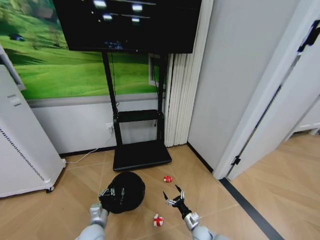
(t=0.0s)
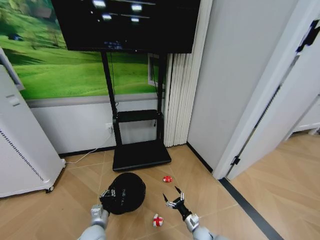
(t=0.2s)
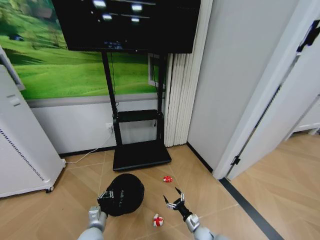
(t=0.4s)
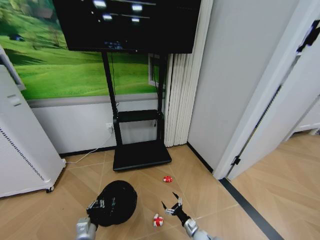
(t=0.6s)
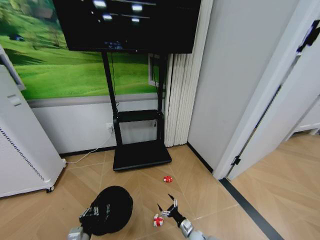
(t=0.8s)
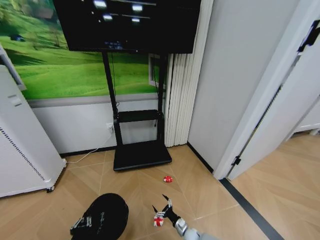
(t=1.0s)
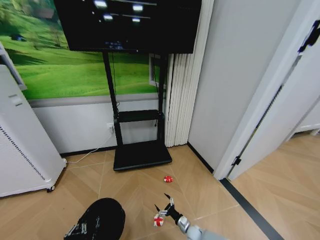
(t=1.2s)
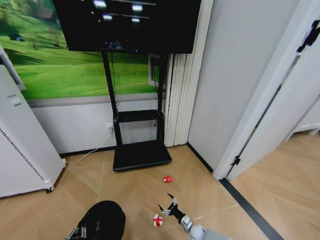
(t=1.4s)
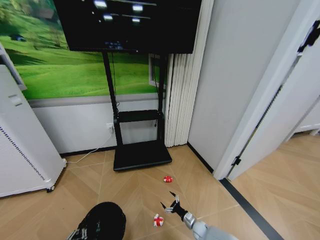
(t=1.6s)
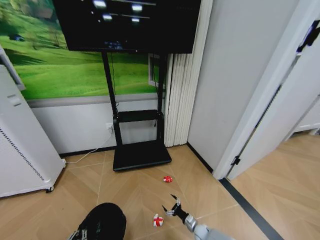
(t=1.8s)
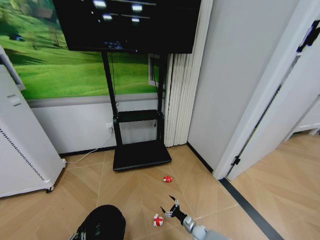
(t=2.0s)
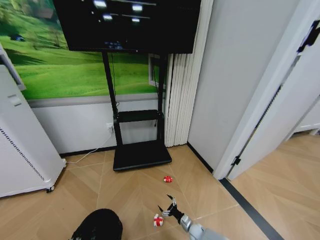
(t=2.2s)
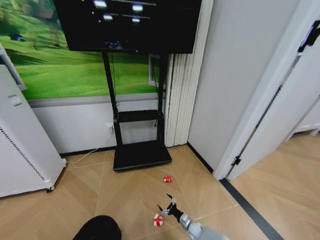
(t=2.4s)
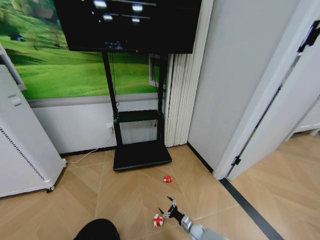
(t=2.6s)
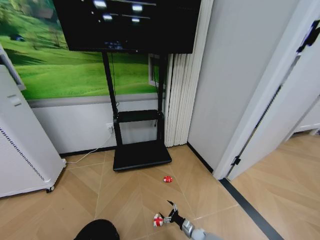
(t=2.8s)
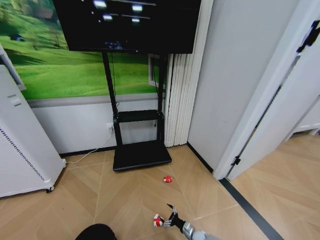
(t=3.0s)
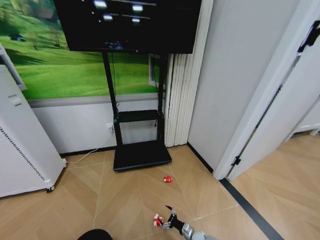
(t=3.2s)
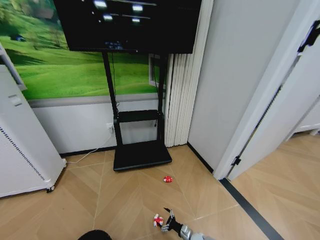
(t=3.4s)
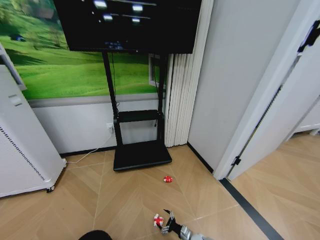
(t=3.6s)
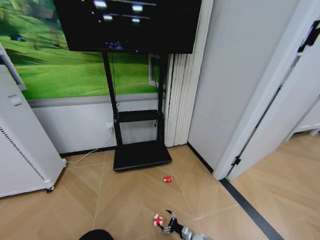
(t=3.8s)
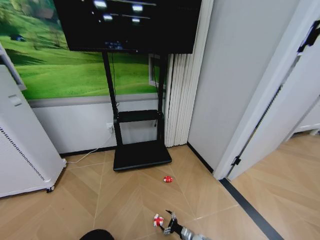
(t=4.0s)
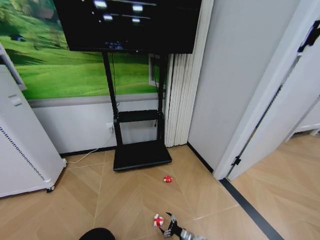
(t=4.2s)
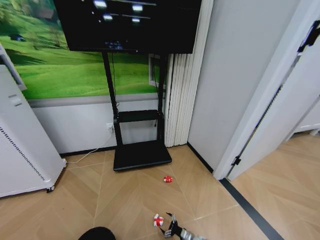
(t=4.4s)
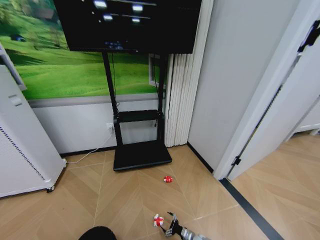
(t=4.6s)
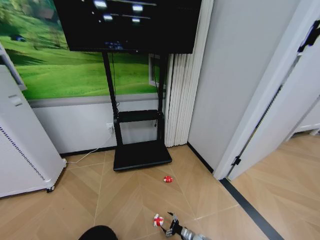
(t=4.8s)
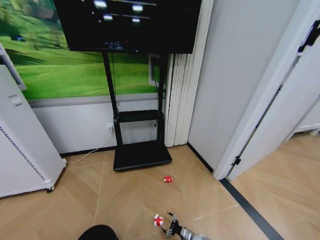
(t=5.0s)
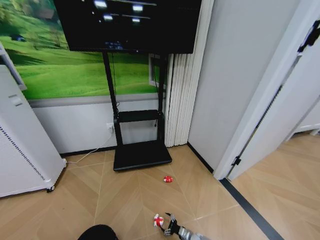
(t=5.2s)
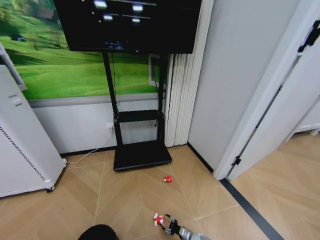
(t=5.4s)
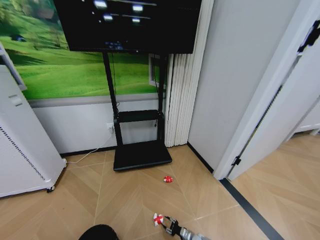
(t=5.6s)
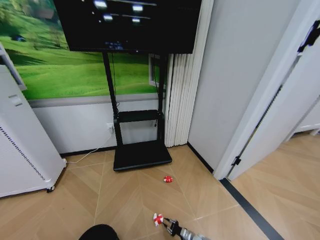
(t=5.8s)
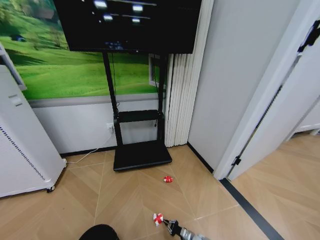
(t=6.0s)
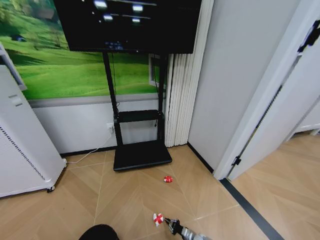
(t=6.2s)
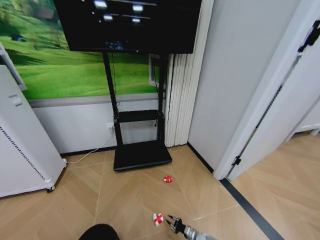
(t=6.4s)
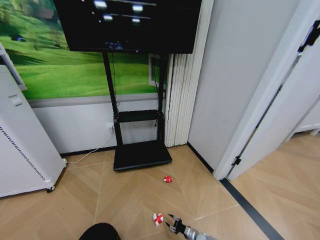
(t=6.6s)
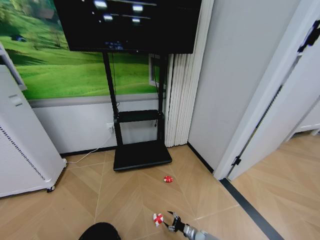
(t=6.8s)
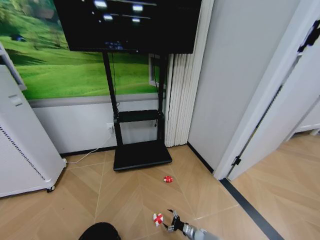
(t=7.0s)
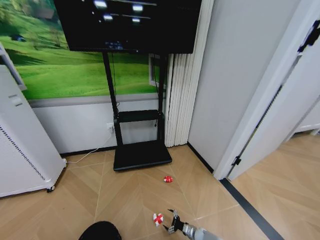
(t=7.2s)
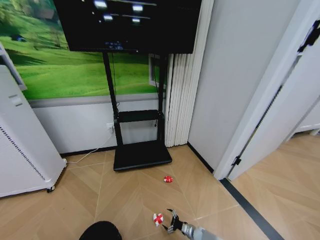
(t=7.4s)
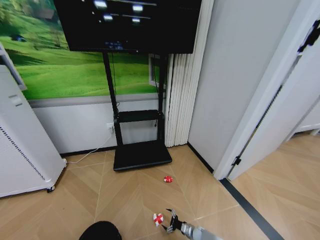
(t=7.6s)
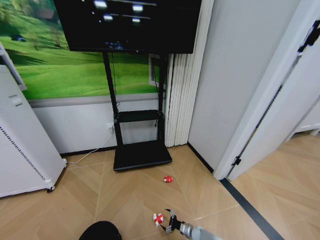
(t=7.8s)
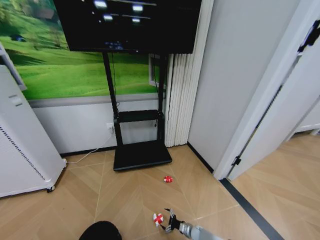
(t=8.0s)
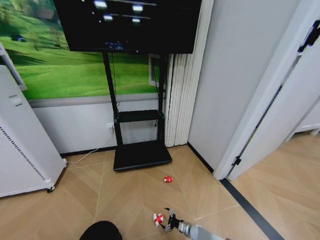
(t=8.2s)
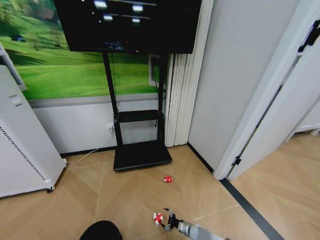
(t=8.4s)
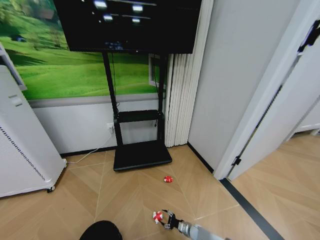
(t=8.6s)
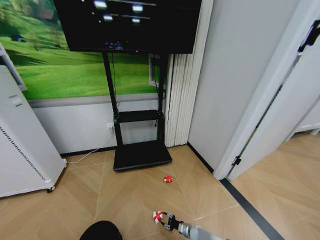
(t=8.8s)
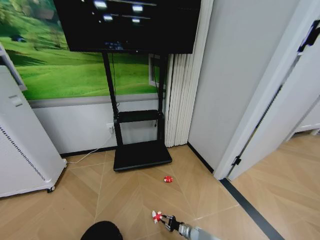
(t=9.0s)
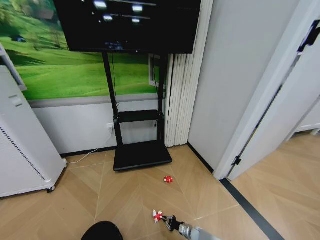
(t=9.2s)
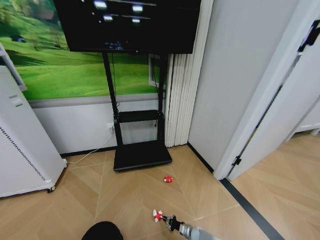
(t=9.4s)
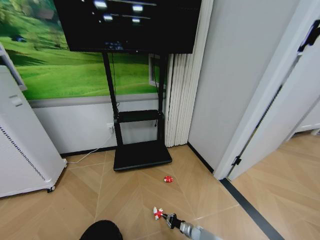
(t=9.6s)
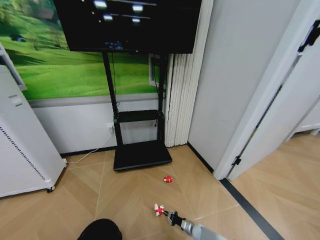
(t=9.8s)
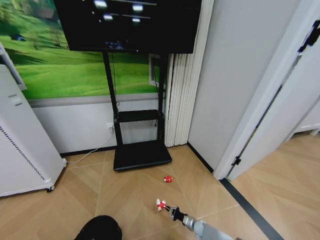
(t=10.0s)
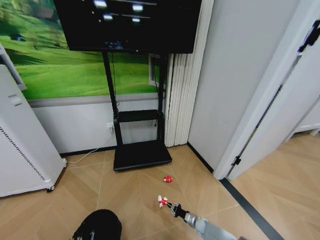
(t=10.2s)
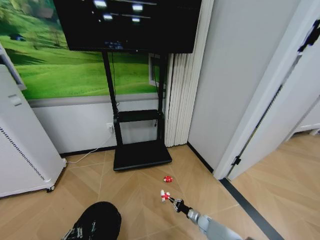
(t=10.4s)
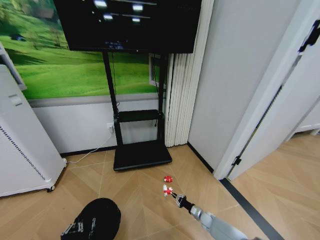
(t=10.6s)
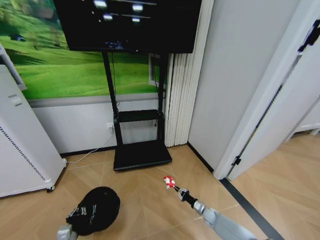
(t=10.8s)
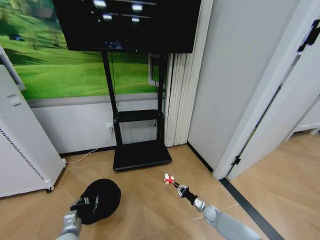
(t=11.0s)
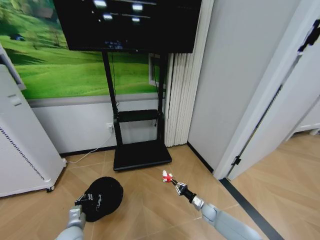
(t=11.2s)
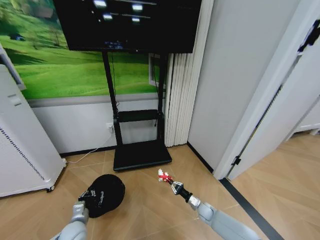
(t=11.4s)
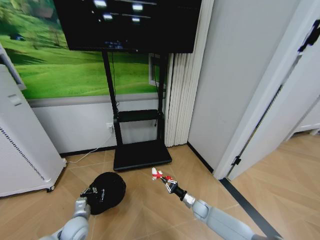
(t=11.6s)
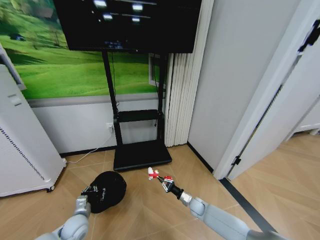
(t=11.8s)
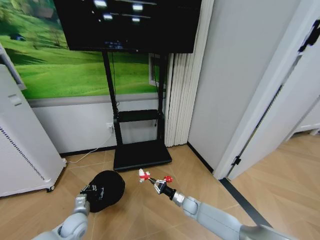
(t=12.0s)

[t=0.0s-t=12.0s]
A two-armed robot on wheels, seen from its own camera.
Task of the whole recording: Pick up the trash bin and place the garbage on the floor into it.
t=0.0s to t=1.6s: The left gripper heads backward, covering some 15 cm. Meanwhile the right gripper moves downward, about 5 cm.
t=1.6s to t=3.0s: The left gripper is displaced backward by some 10 cm.
t=3.0s to t=4.4s: There are only small adjustments of the grippers.
t=6.0s to t=7.6s: The right gripper opens.
t=7.6s to t=9.0s: The right gripper closes up.
t=9.0s to t=10.4s: The right gripper travels to the right by some 5 cm; the left gripper travels forward by roughly 10 cm.
t=10.4s to t=12.0s: The left gripper heads forward, covering about 20 cm. The right gripper heads upward and to the left, covering some 15 cm.

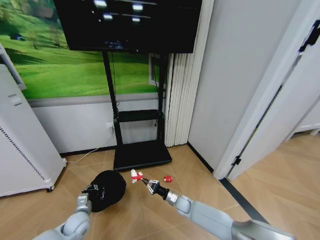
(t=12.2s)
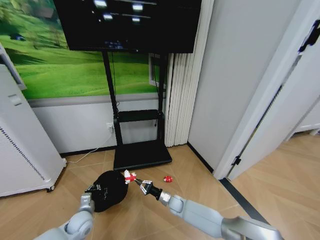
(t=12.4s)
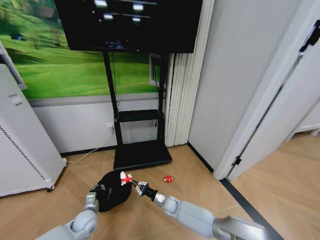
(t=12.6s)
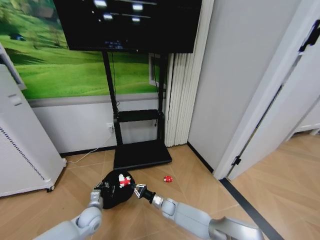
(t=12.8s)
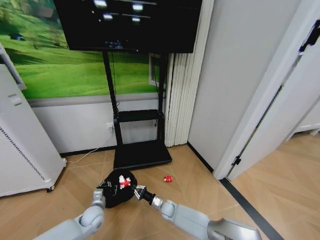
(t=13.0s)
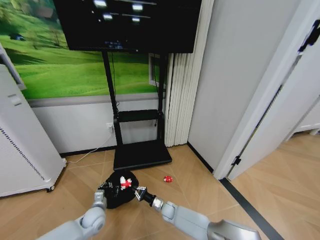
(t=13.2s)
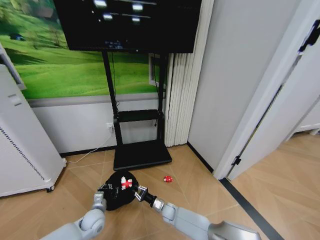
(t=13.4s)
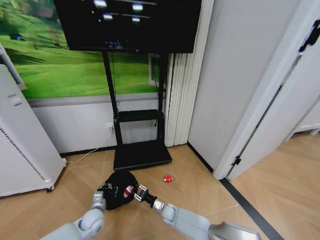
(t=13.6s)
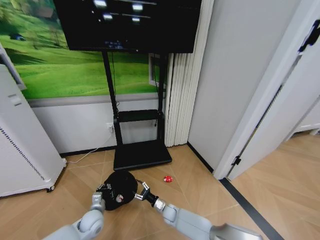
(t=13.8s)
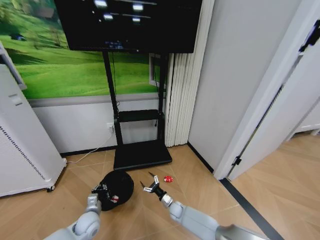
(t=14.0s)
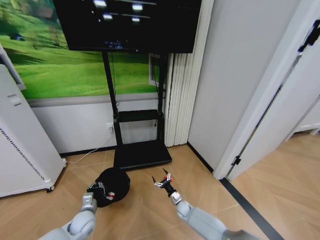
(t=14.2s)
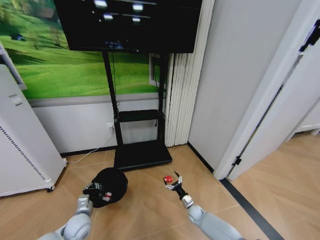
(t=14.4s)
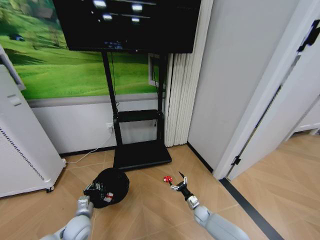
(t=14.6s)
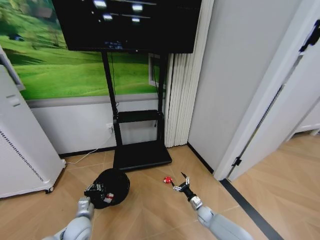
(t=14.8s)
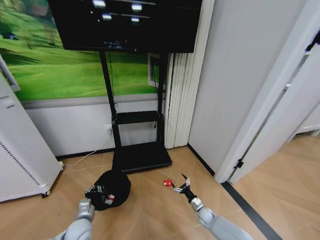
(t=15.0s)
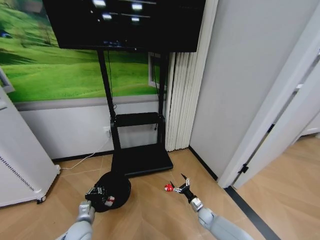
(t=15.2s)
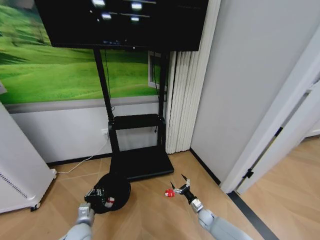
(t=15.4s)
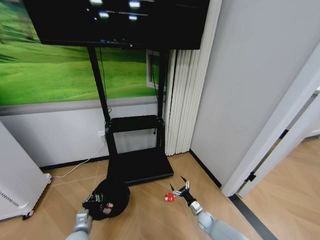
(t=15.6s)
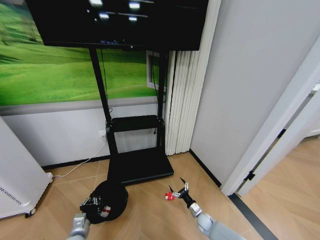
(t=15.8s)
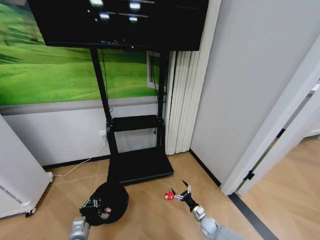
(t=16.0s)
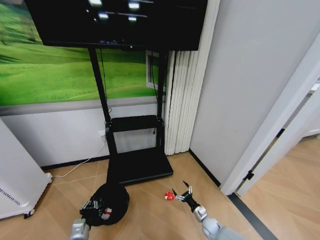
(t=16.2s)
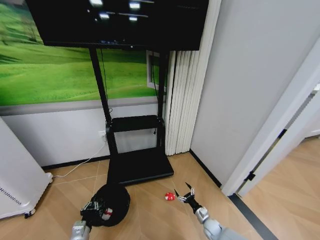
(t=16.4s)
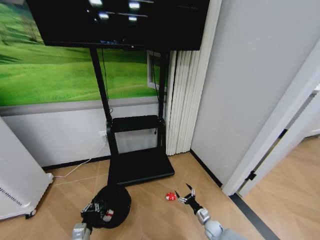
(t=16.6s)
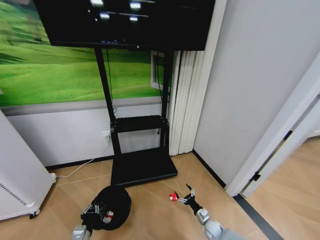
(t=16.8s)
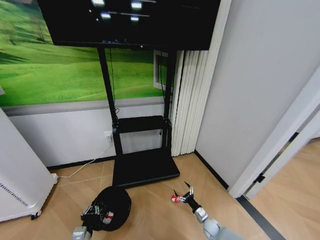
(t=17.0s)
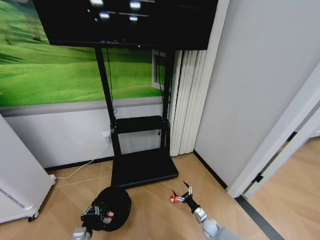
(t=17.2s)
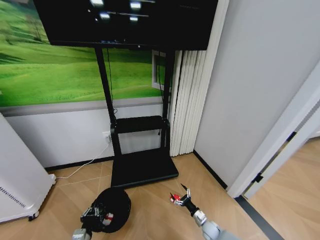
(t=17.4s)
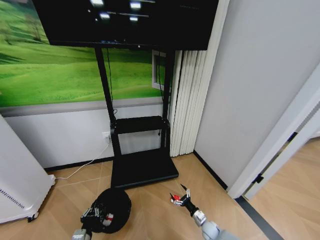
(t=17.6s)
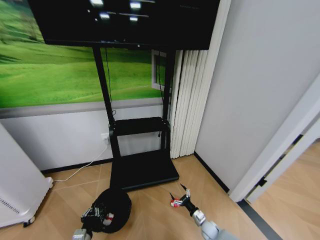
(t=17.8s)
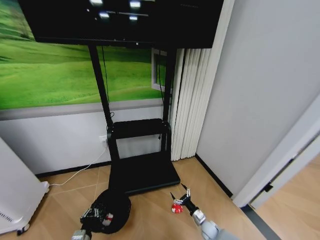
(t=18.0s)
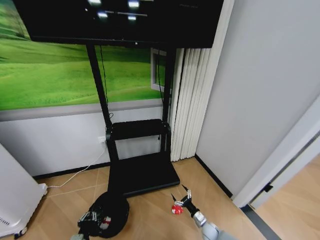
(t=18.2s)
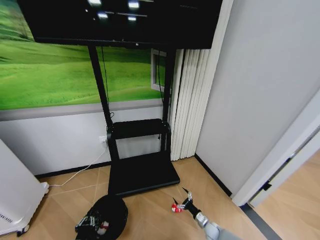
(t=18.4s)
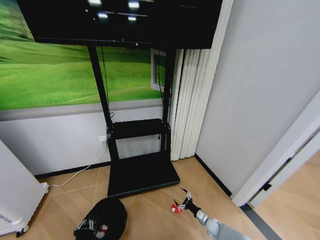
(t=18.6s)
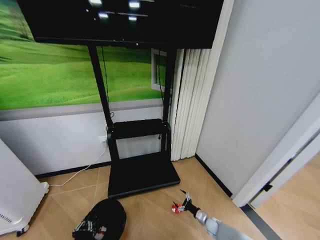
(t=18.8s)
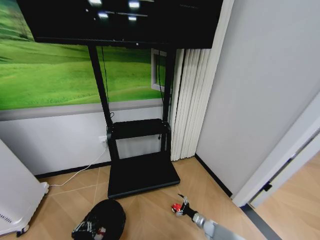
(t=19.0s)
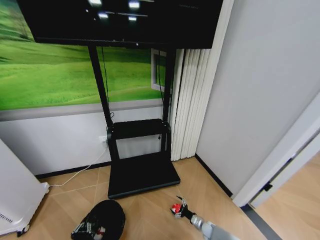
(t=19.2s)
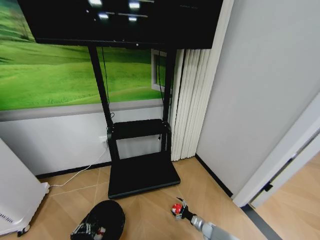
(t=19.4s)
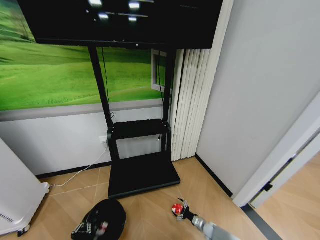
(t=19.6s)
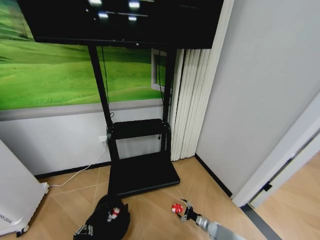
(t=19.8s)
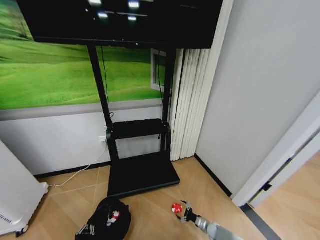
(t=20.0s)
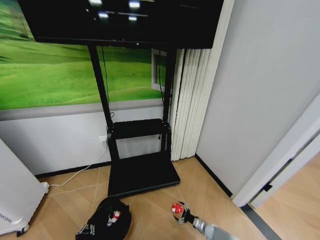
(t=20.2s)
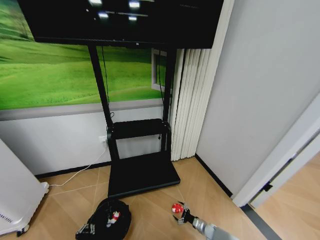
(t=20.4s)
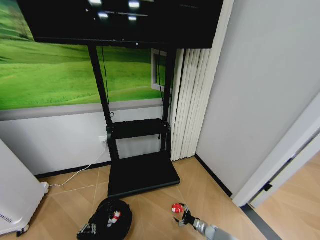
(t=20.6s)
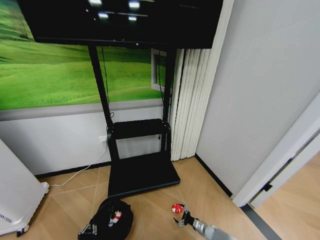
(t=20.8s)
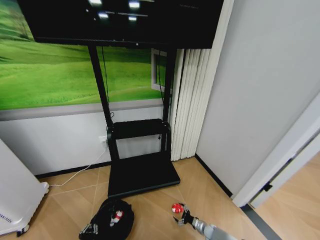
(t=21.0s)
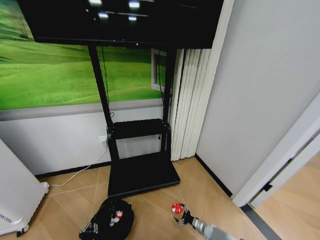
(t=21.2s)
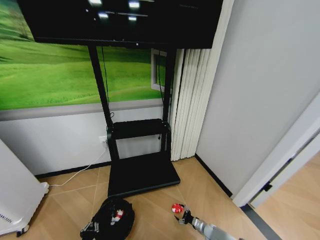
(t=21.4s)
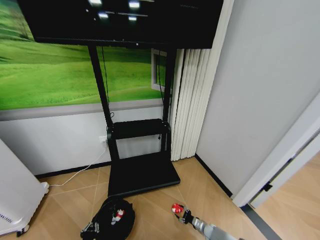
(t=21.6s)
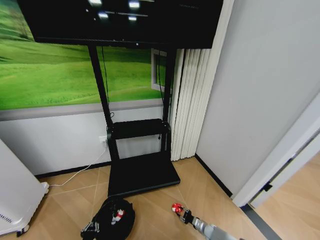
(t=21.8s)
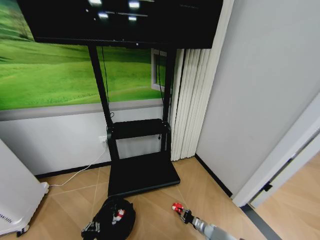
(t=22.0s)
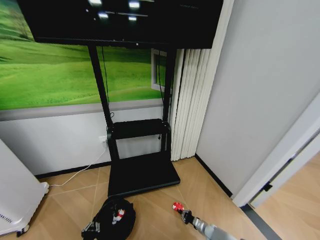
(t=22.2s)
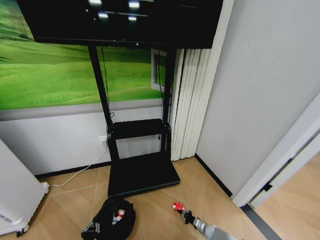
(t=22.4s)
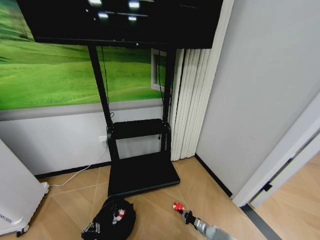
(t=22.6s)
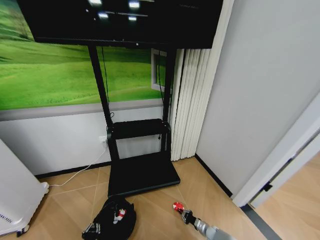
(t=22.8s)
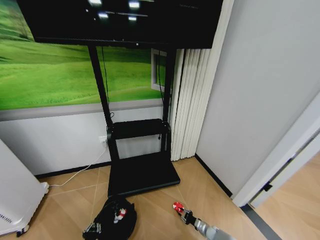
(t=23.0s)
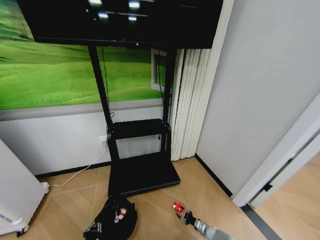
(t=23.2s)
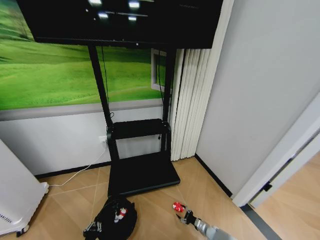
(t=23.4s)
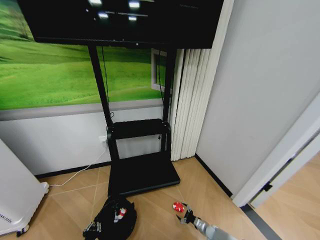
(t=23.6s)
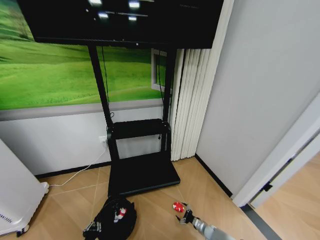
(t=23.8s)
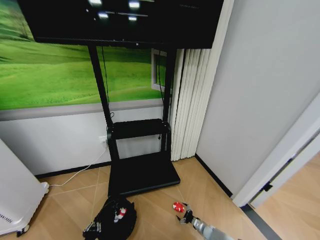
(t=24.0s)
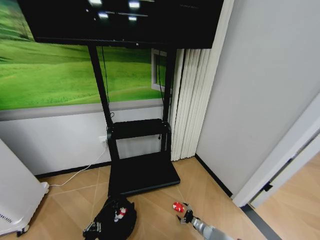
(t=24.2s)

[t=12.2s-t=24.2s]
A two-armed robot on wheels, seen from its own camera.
Task of the whole recording: Pick up the trash bin and place the garbage on the floor into it.
t=12.2s to t=13.8s: The left gripper goes about 5 cm to the right. The right gripper moves to the left and downward, approximately 10 cm, and opens up.
t=13.8s to t=15.2s: The left gripper changes place by about 5 cm, while the right gripper goes some 20 cm to the right, and opens its fingers.
t=15.2s to t=16.6s: The grippers both shift backward by approximately 5 cm.
t=18.2s to t=19.8s: The left gripper changes place by about 5 cm. Meanwhile the right gripper goes about 10 cm to the right and downward.
t=19.8s to t=21.2s: The grippers make only small movements.
t=21.2s to t=22.6s: The right gripper closes.
t=22.6s to t=24.2s: The right gripper opens its fingers.
